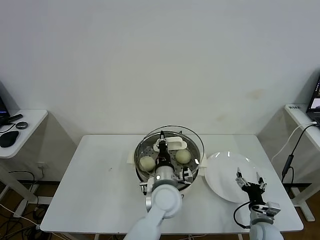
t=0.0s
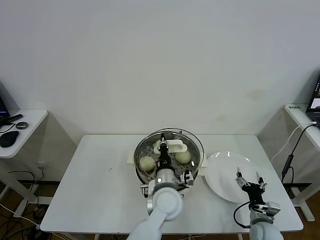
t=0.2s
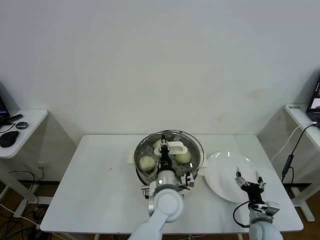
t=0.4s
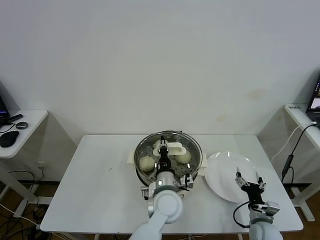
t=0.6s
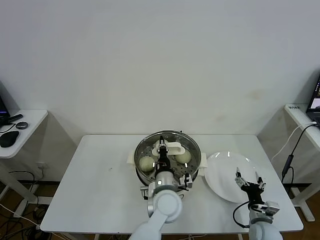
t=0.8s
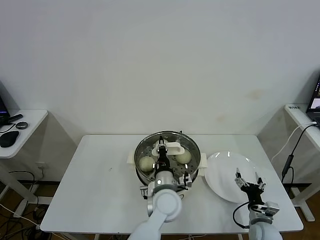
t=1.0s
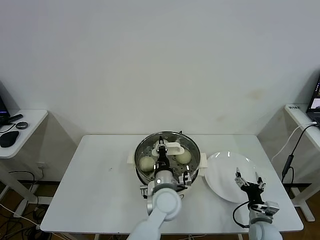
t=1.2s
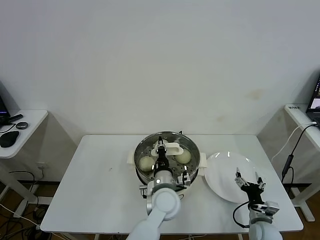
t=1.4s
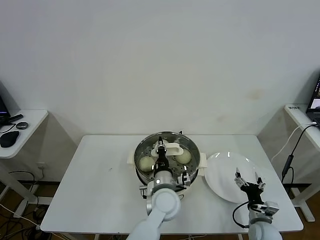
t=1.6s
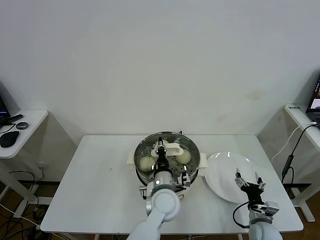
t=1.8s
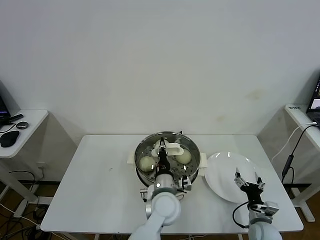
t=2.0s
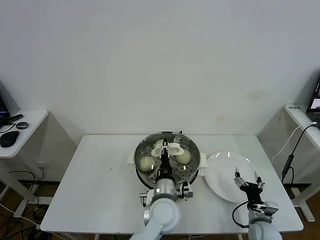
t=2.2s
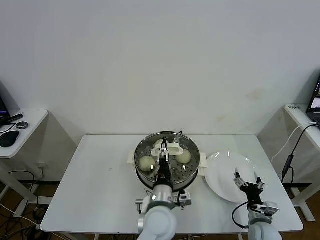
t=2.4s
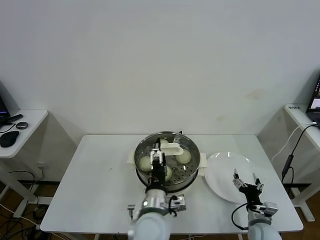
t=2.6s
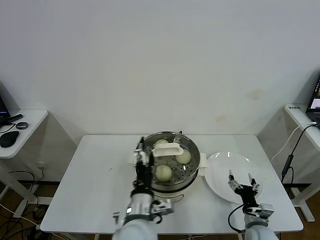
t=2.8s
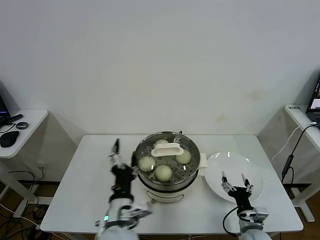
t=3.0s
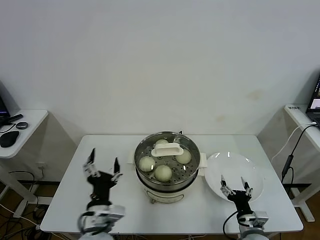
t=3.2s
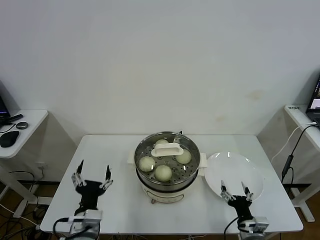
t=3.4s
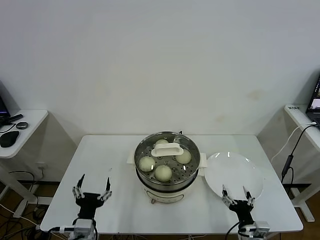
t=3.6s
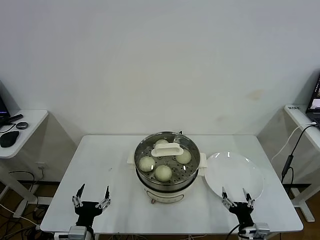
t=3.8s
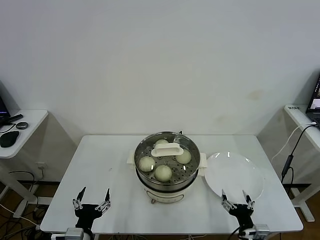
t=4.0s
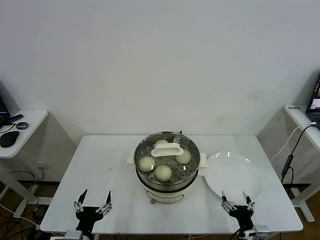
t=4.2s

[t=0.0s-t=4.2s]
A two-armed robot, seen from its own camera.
Task of the whole recording: take steamed baozi put them in steamer.
Step, t=0.0s to t=2.6s: Place the pot lid on the steamer with left gripper.
t=0.0s to t=1.4s: The grippers stay close to where they were, moving slightly.
t=1.4s to t=2.8s: The left gripper is displaced backward and to the left by some 10 cm, and opens up.
t=2.8s to t=4.2s: The right gripper shifts some 10 cm backward; the left gripper goes approximately 25 cm to the left, downward and backward.
